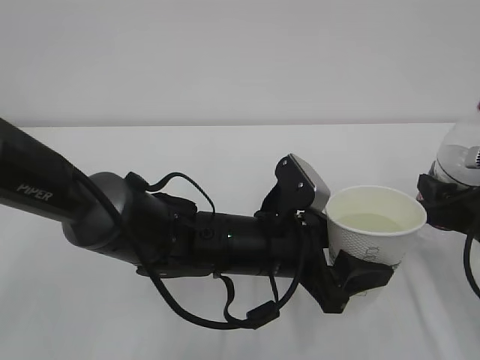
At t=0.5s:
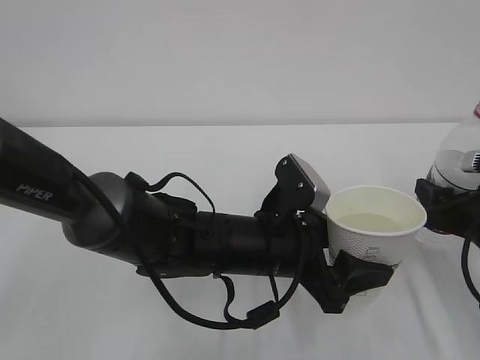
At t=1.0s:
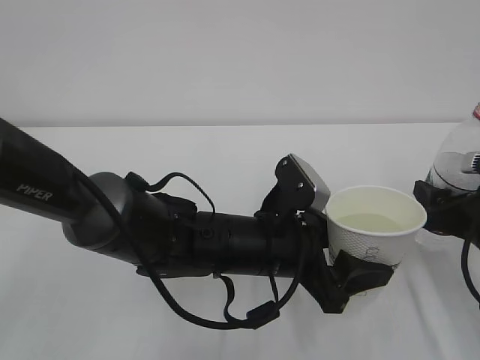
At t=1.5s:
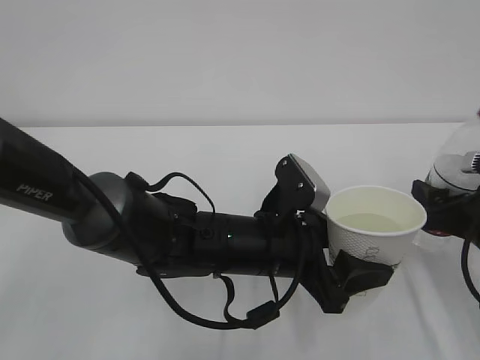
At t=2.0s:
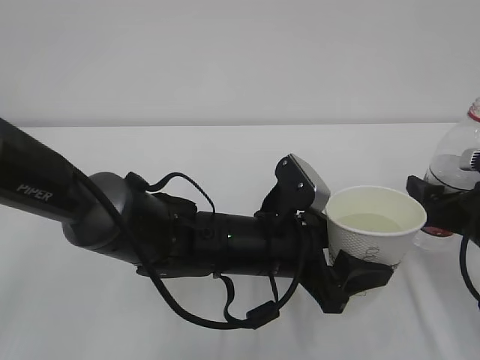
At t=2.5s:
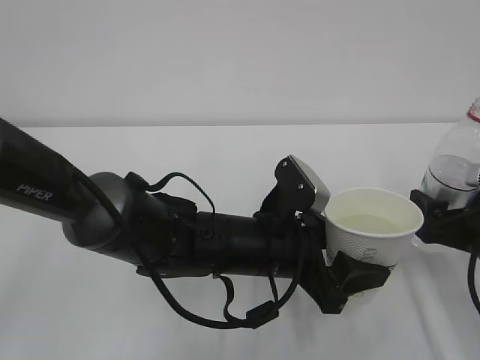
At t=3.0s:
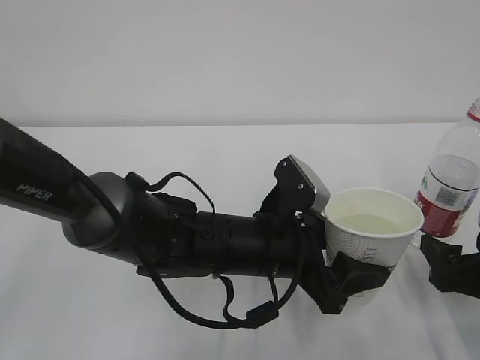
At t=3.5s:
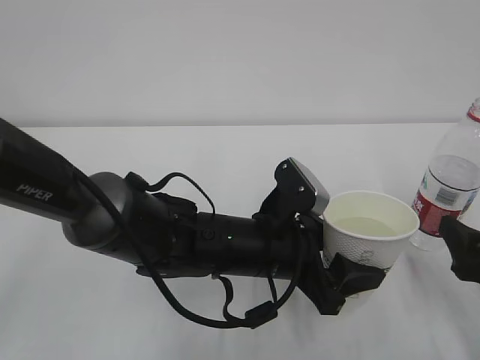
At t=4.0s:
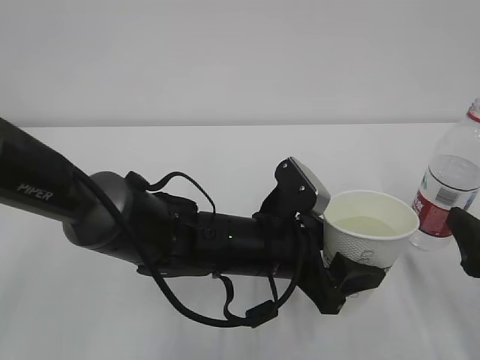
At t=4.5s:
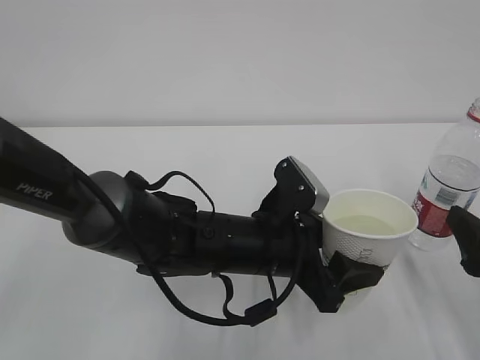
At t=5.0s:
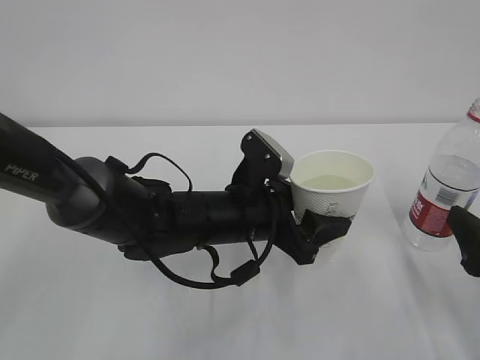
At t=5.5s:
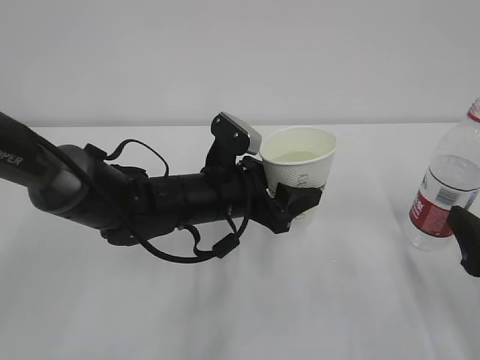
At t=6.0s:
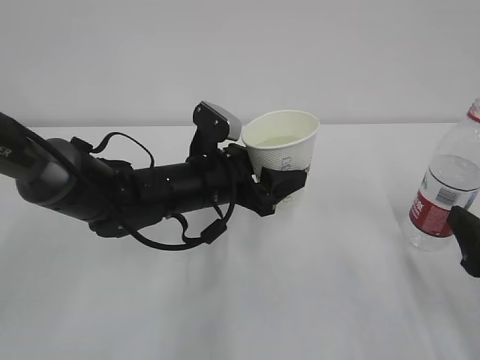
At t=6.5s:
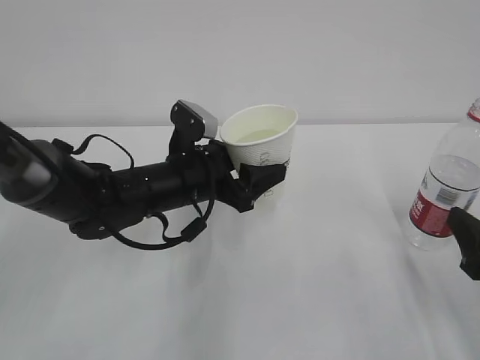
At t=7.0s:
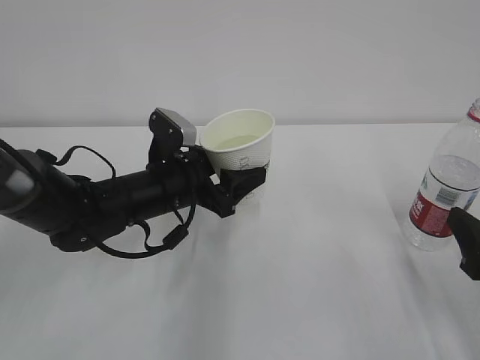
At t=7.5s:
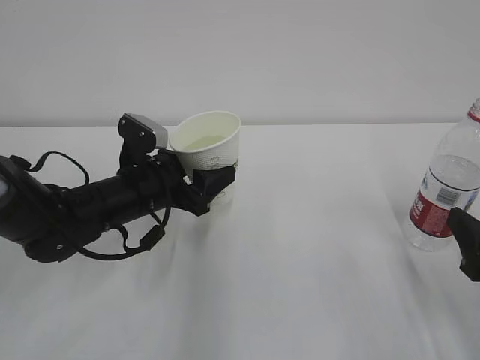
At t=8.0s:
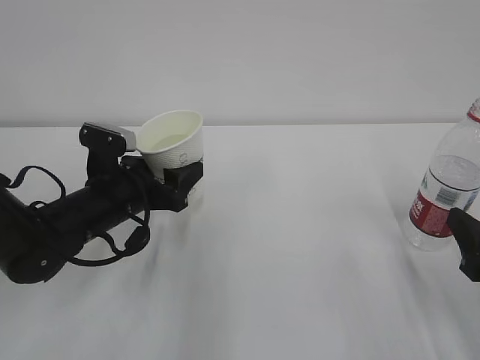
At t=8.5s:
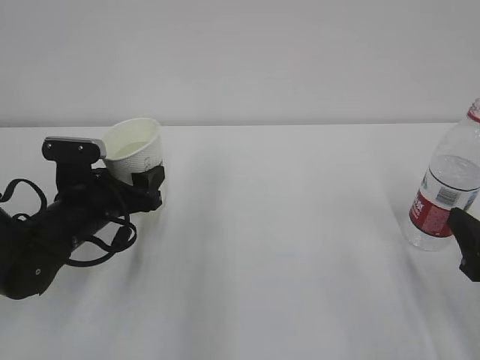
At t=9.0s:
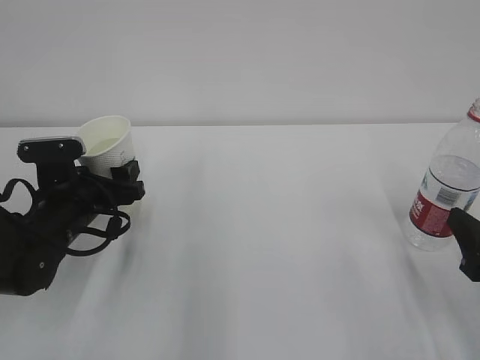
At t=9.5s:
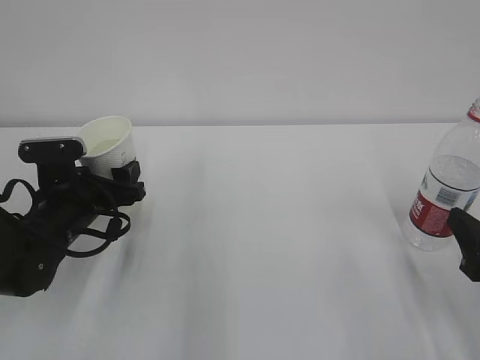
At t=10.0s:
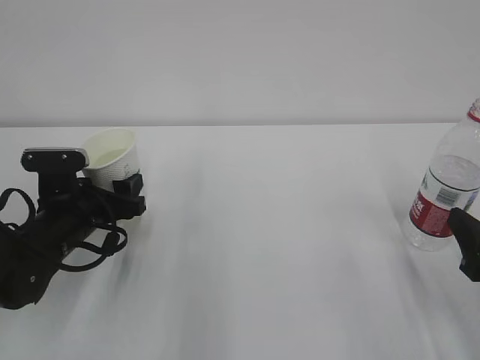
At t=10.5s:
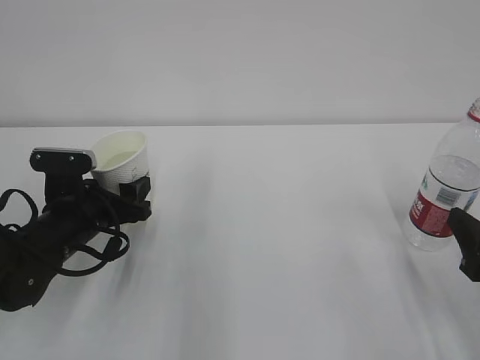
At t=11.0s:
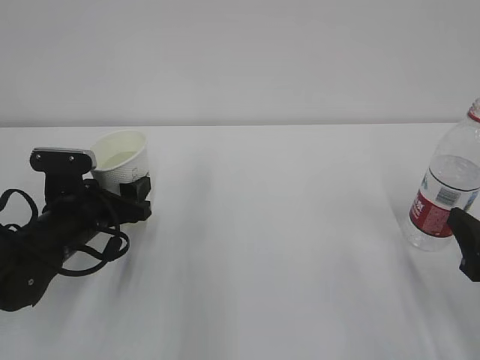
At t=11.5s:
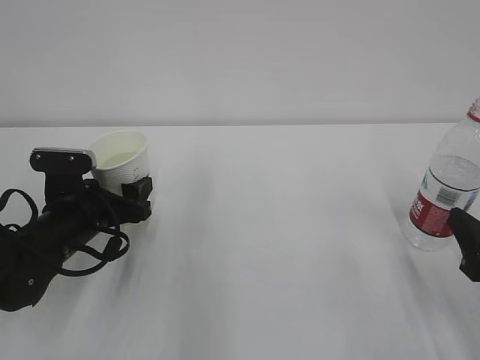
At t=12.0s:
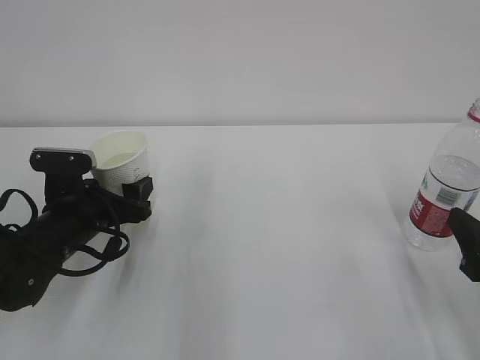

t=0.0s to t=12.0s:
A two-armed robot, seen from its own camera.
t=0.0s to t=2.0s: The right gripper opens.
t=2.0s to t=4.0s: The right gripper is displaced backward by roughly 10 cm.
t=4.0s to t=6.0s: The left gripper heads forward and to the left, covering some 10 cm.
t=6.0s to t=8.0s: The left gripper goes roughly 10 cm to the left.
t=10.0s to t=12.0s: The two grippers keep their place.

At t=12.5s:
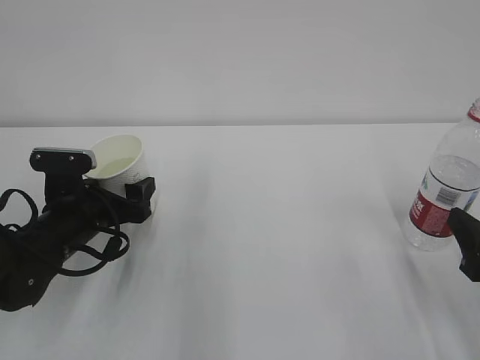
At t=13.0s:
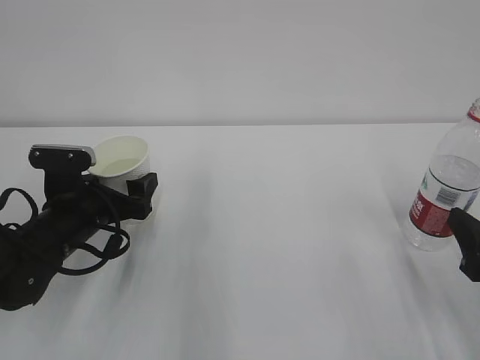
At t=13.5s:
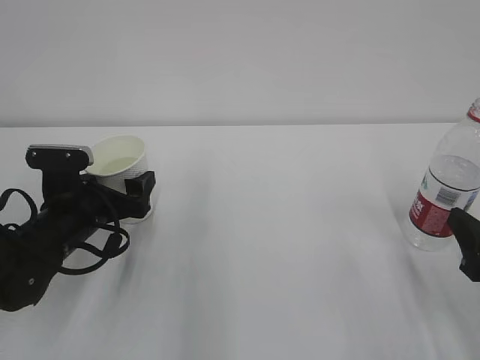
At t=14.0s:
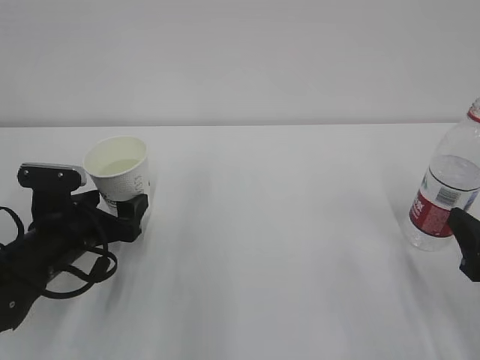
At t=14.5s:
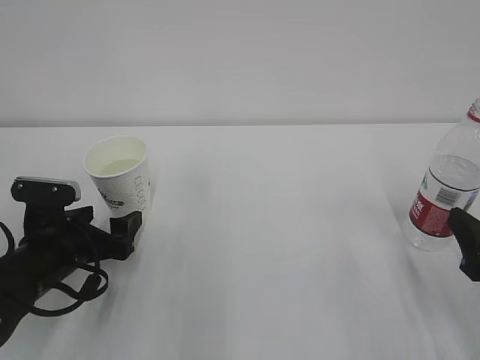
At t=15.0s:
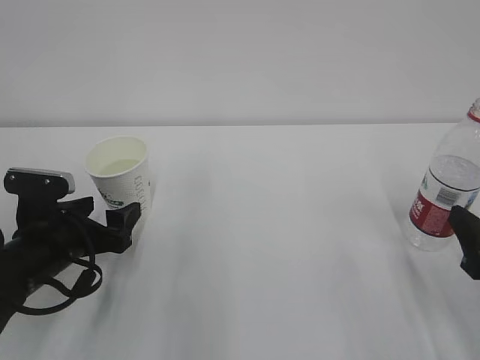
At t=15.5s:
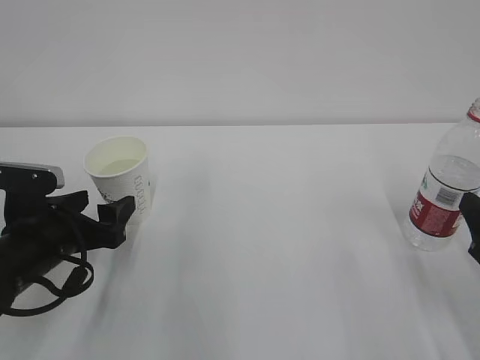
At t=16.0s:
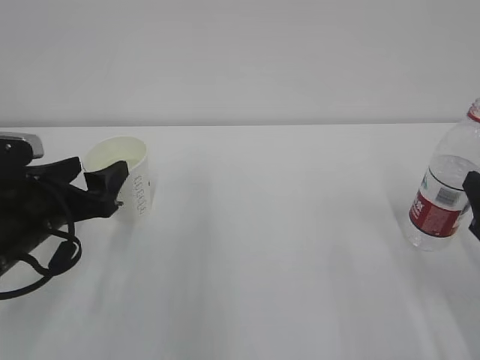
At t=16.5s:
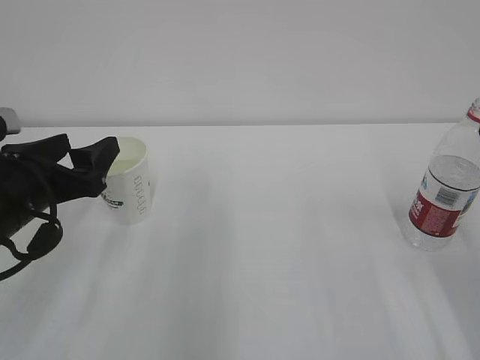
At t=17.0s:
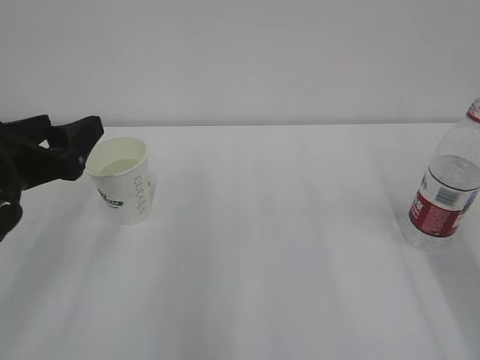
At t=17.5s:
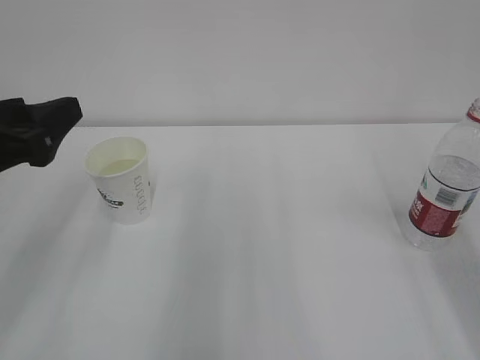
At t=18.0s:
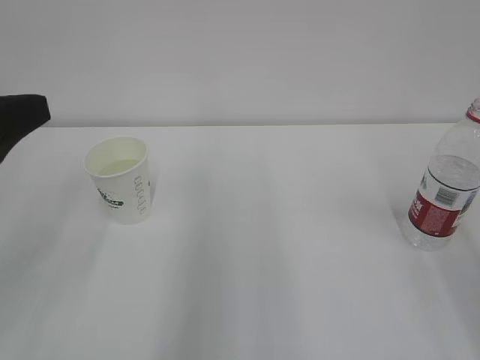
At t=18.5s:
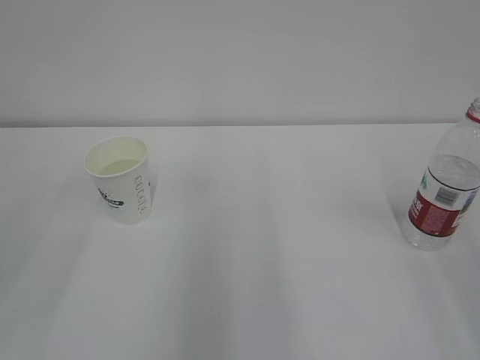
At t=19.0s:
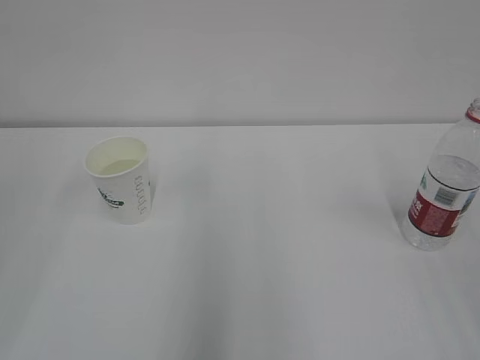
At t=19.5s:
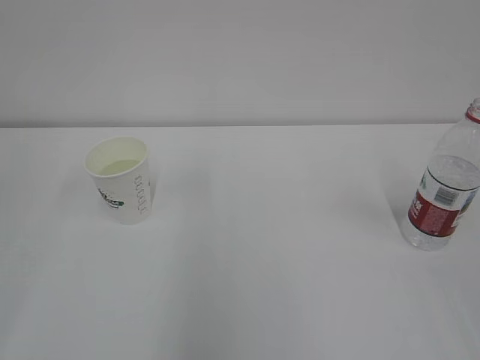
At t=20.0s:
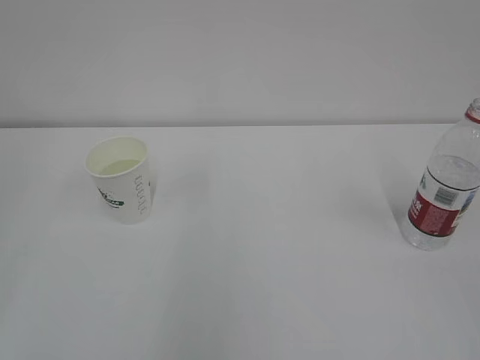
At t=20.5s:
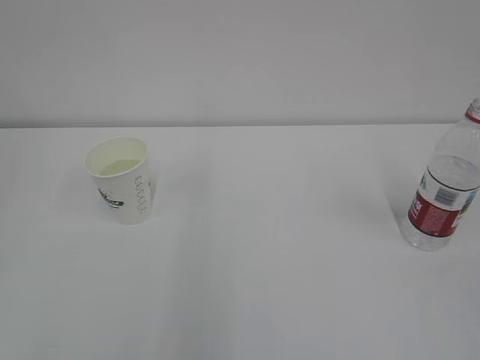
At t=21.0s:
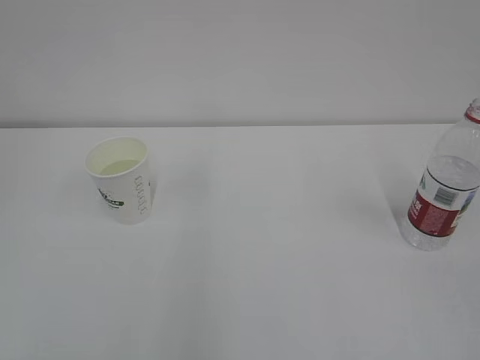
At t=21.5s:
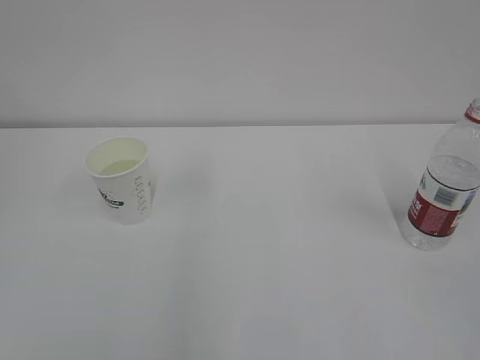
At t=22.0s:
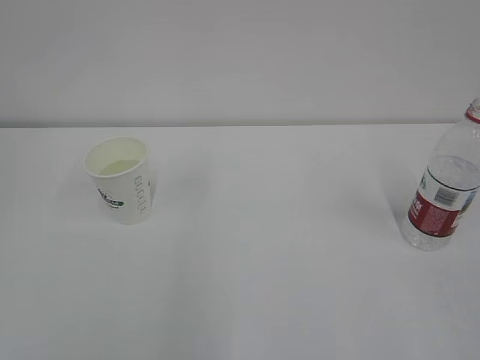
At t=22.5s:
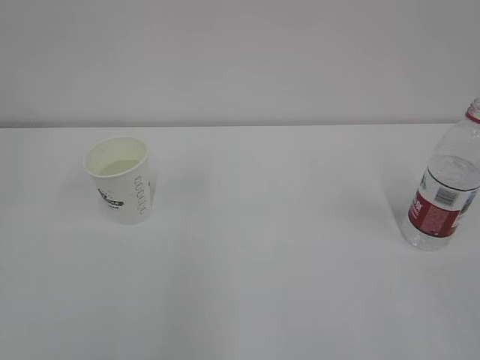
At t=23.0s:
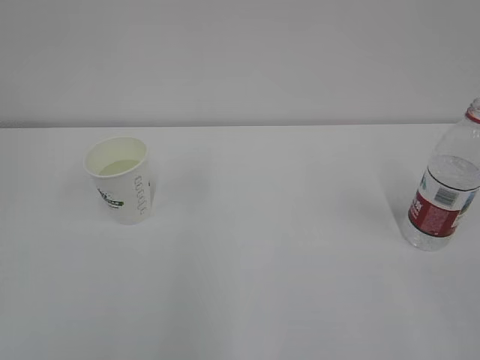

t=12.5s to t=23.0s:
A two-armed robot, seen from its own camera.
t=12.5s to t=14.5s: The grippers stay close to where they were, moving slightly.
t=14.5s to t=16.5s: The left gripper heads upward, covering approximately 10 cm; the right gripper heads upward, covering approximately 5 cm.
t=16.5s to t=19.0s: Both grippers travel together upward and backward, some 30 cm. The left gripper closes.
